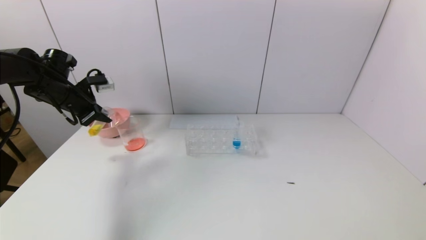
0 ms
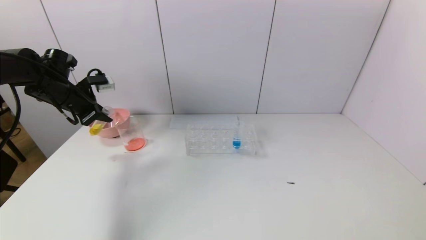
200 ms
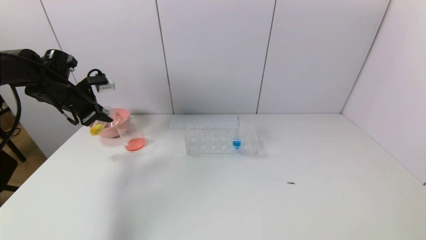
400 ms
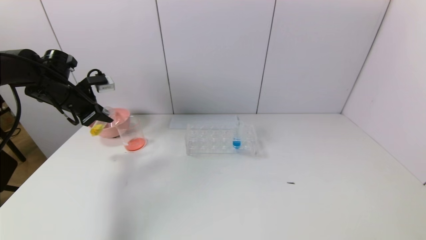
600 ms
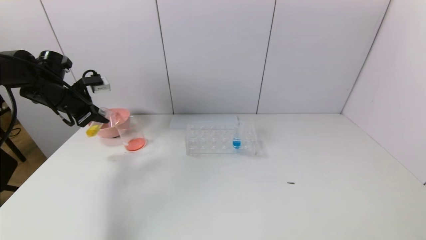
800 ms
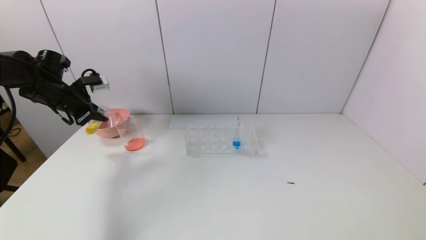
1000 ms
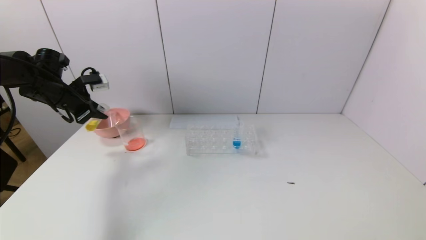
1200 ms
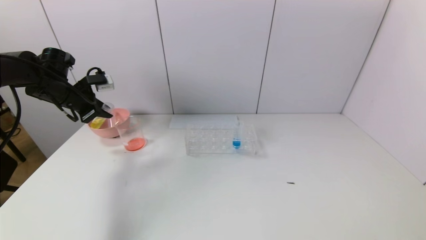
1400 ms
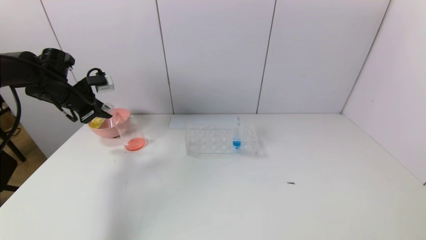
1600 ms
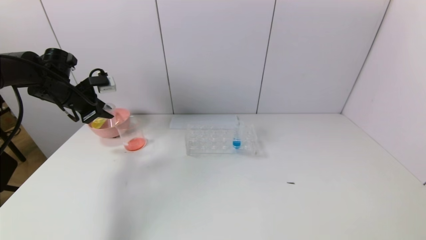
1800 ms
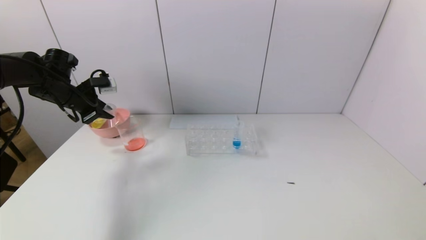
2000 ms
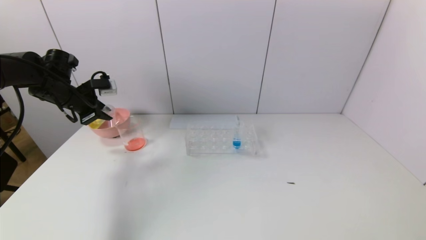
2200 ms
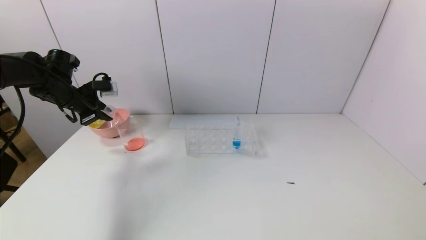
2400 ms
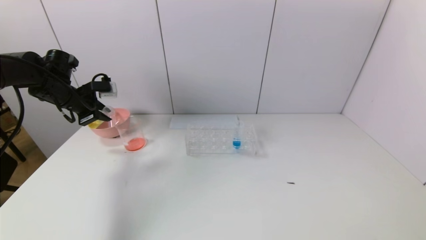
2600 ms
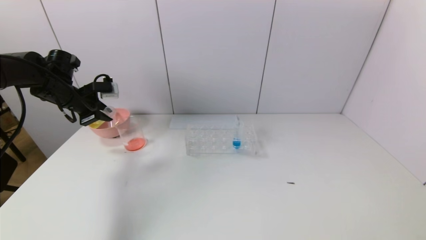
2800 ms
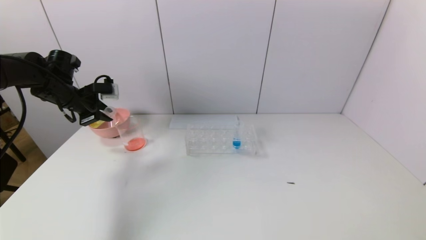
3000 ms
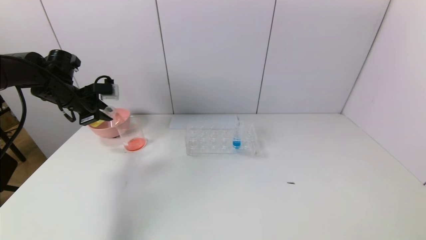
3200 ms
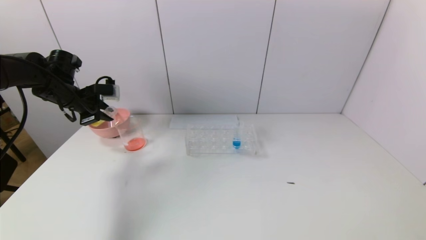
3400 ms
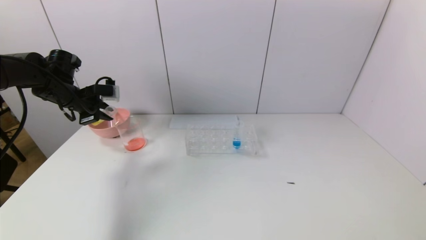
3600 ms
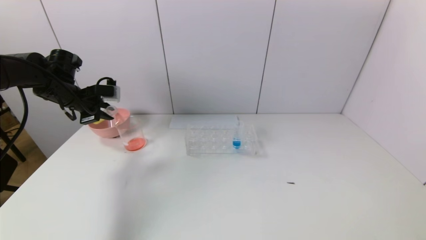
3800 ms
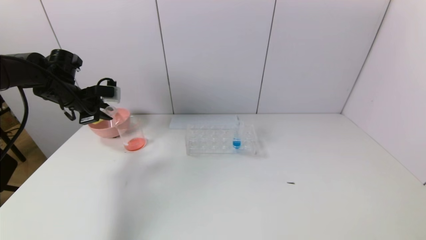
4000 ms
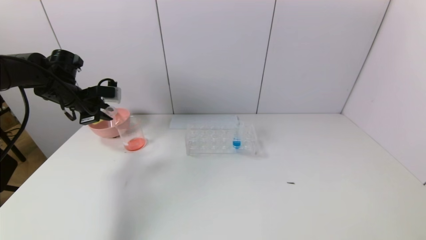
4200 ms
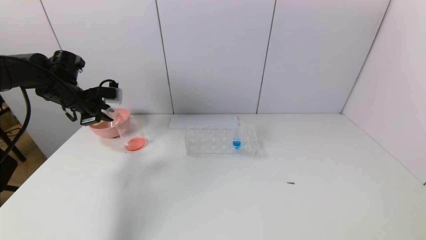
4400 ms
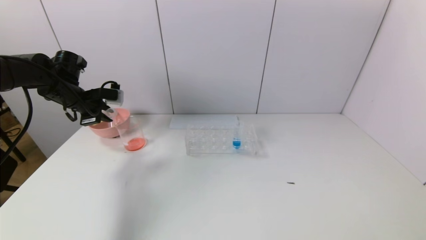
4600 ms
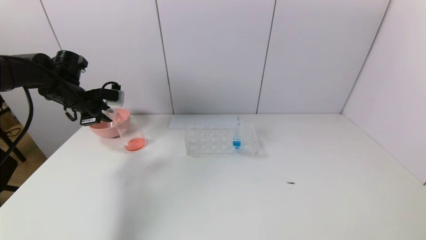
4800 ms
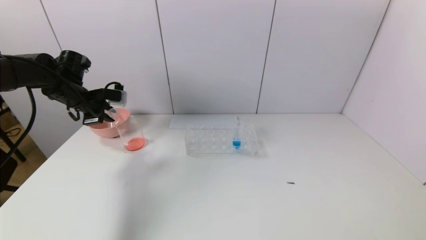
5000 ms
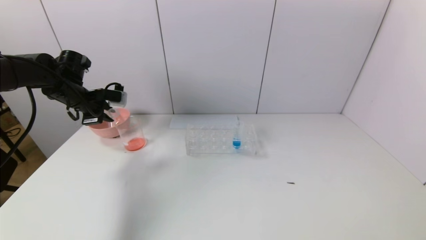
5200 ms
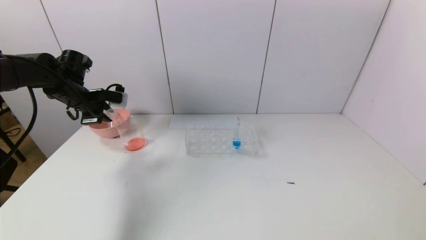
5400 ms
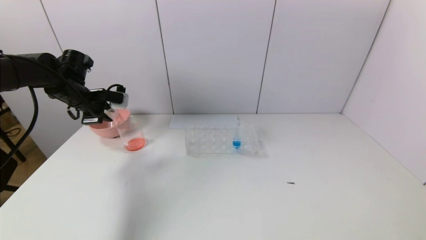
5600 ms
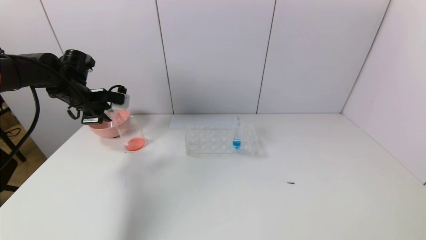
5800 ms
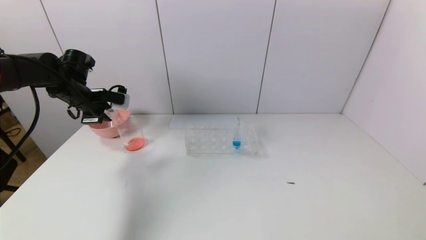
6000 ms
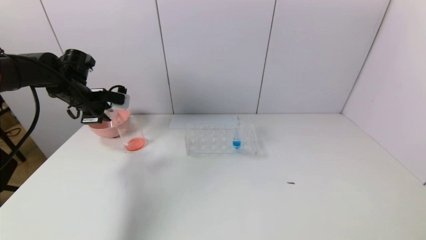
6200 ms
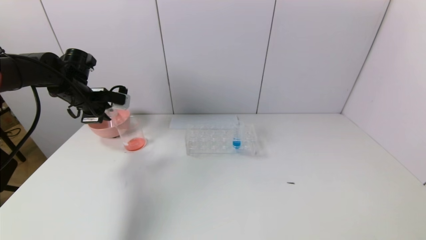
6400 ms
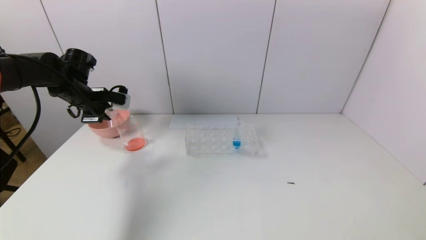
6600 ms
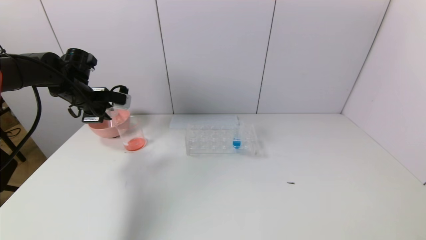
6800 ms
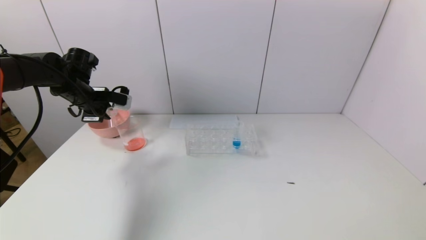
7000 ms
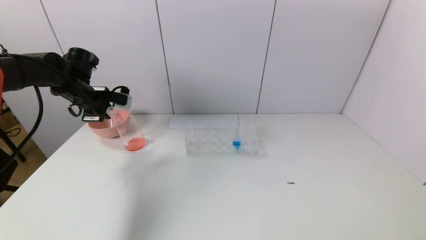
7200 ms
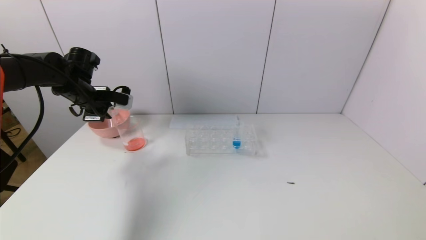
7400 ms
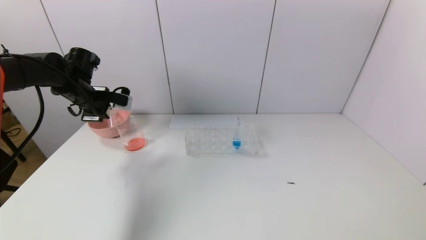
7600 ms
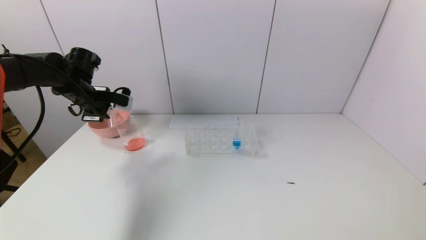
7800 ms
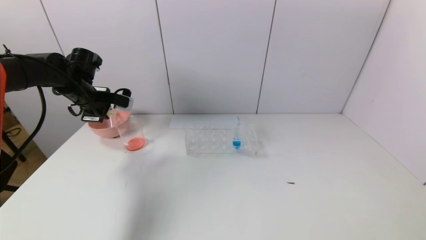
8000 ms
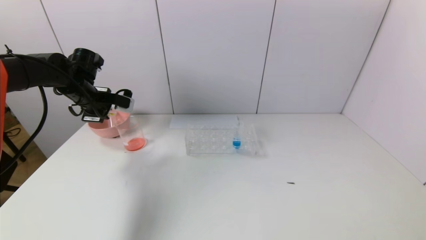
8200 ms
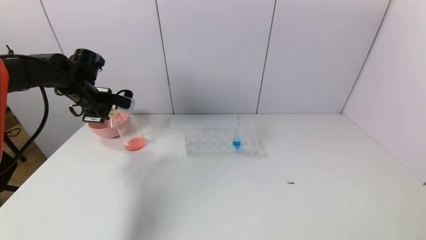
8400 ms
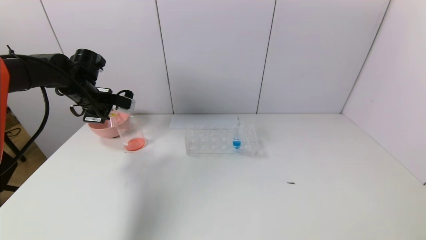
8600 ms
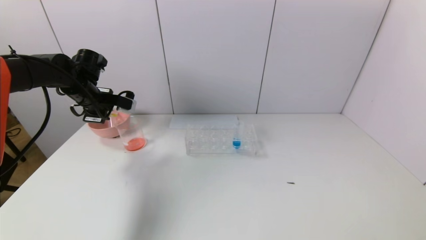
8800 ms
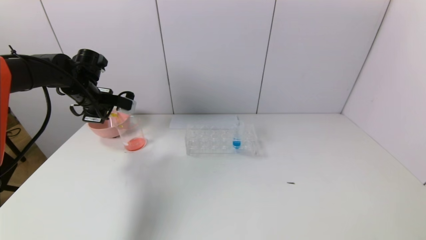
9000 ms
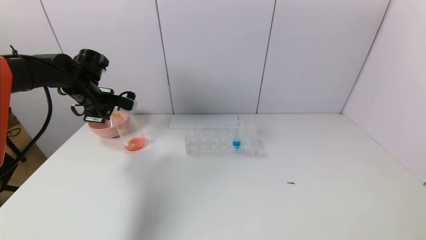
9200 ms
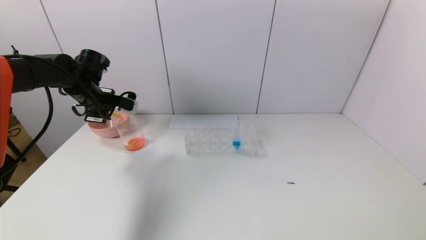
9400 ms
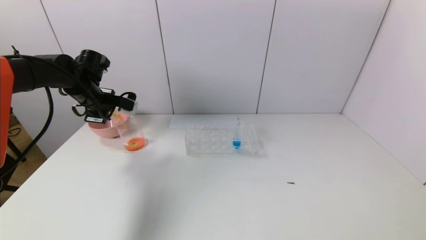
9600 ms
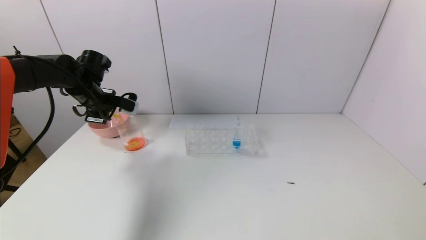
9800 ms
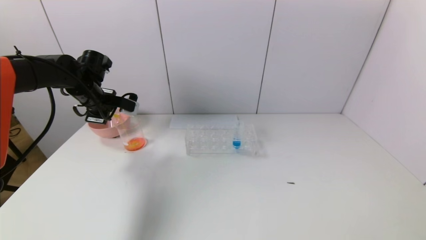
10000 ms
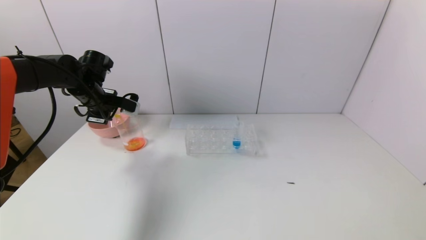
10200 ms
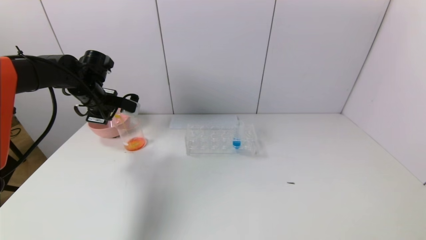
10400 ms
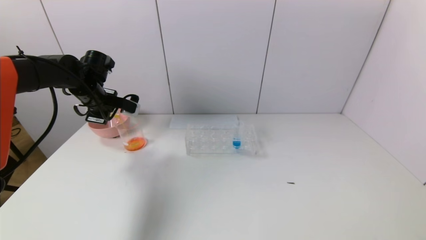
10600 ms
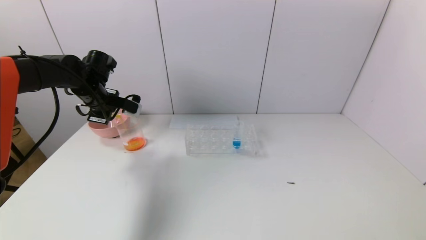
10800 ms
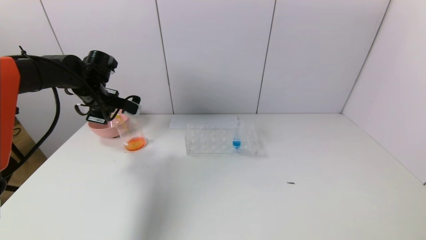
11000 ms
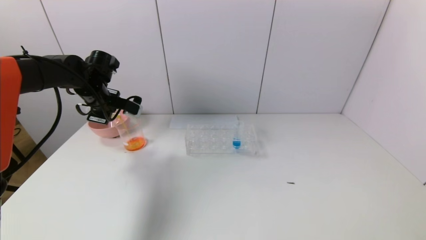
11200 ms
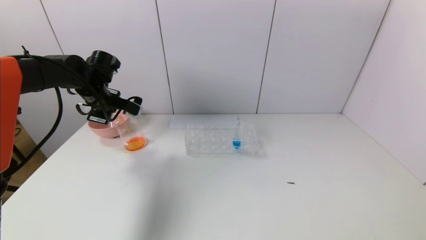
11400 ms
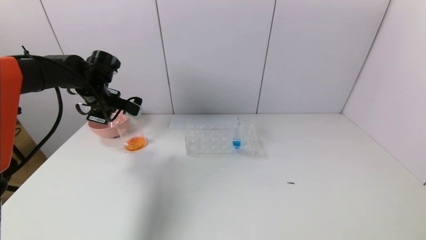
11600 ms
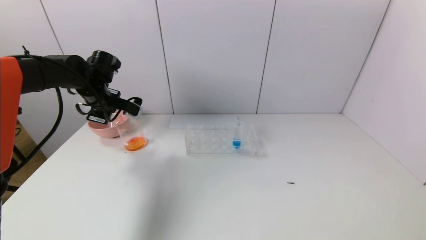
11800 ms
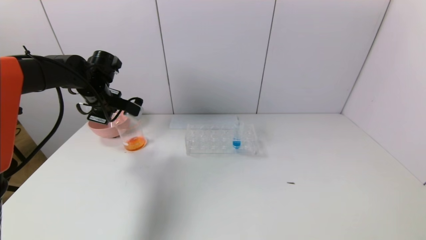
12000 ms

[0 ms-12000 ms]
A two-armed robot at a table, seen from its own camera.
Task of the whole recording: pick up the test tube with yellow pigment and the test tube with red pigment by grippers and pour them into the beaker.
0 ms to 1600 ms: There are only small adjustments of the grippers.
1600 ms to 3000 ms: The grippers move only a little.
3000 ms to 6000 ms: The grippers move only a little.
6000 ms to 9000 ms: The grippers move only a little.
9000 ms to 10400 ms: Both grippers stay put.
10400 ms to 12000 ms: The grippers make only small movements.

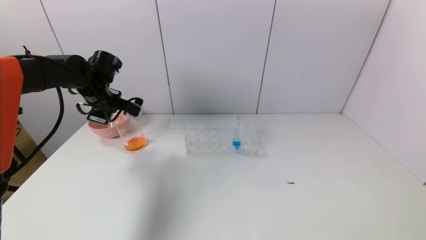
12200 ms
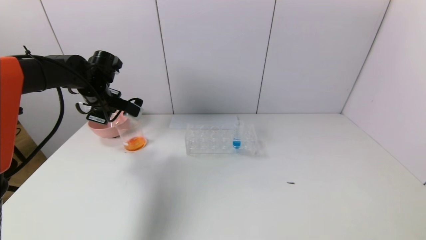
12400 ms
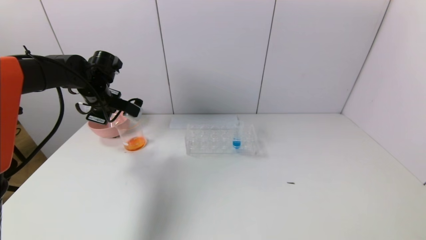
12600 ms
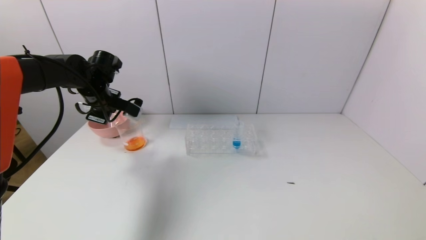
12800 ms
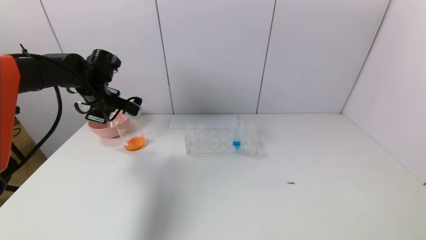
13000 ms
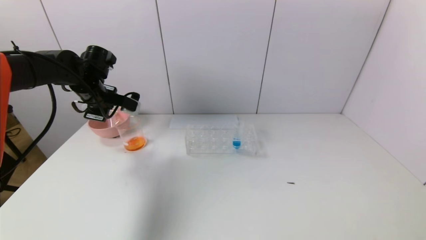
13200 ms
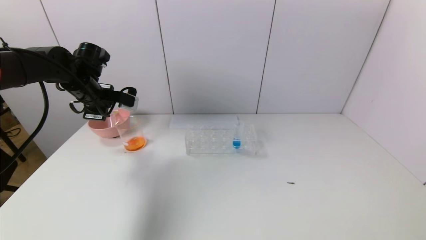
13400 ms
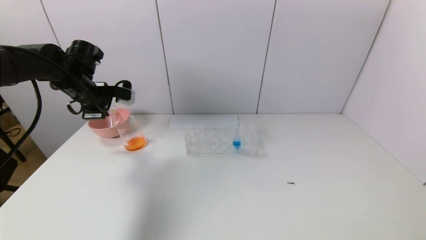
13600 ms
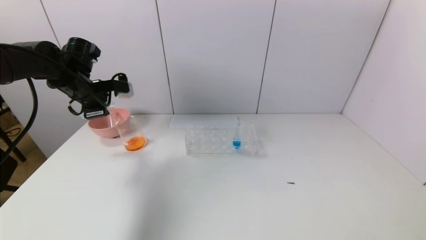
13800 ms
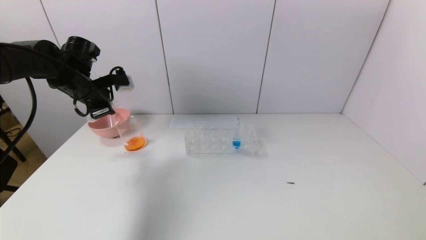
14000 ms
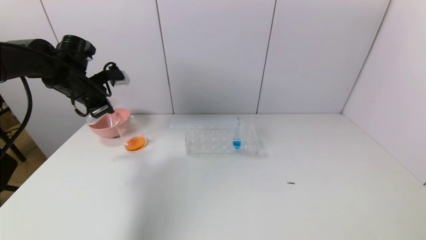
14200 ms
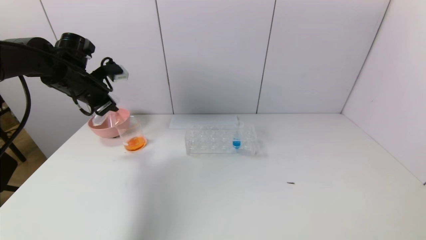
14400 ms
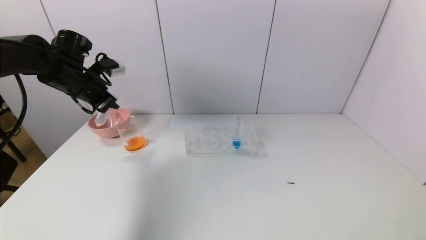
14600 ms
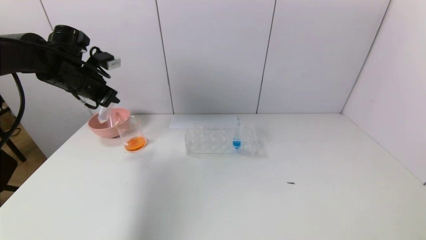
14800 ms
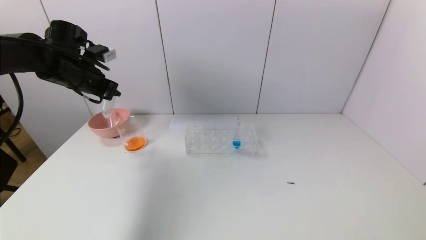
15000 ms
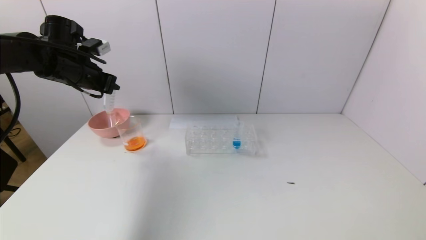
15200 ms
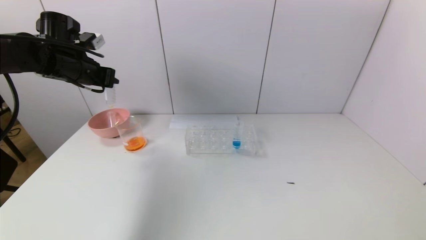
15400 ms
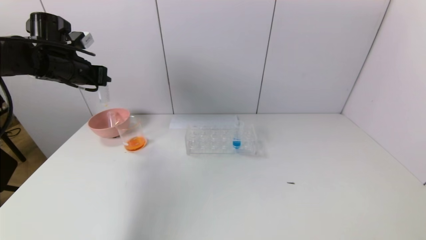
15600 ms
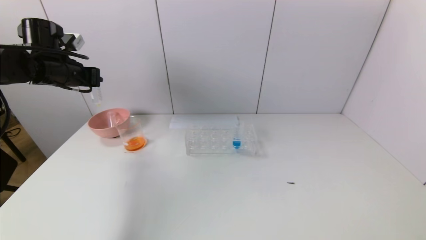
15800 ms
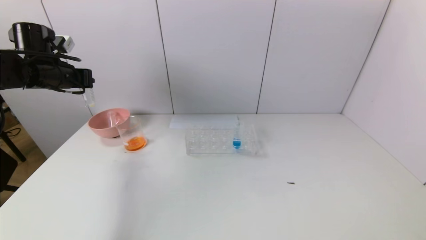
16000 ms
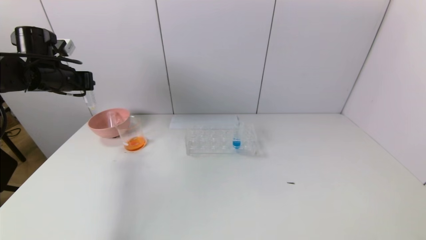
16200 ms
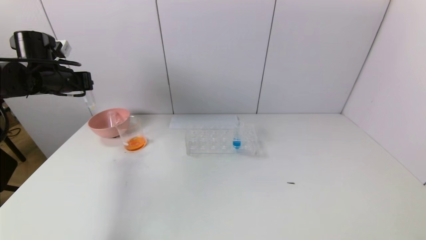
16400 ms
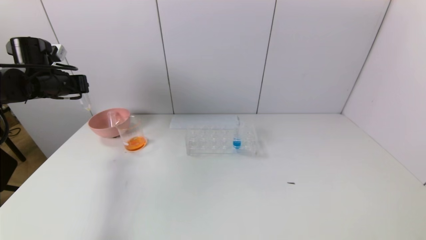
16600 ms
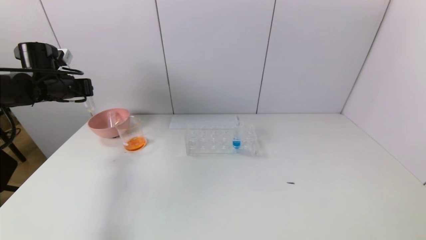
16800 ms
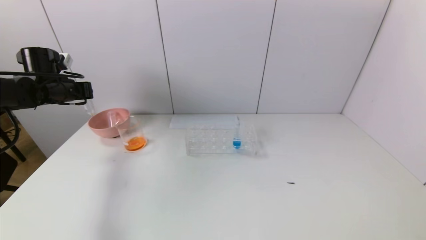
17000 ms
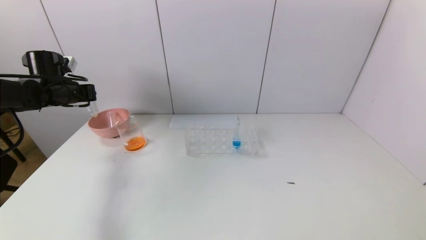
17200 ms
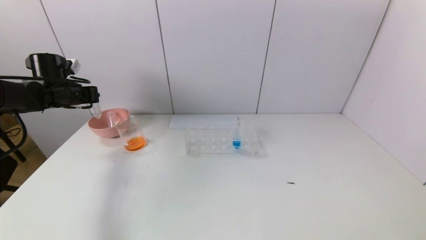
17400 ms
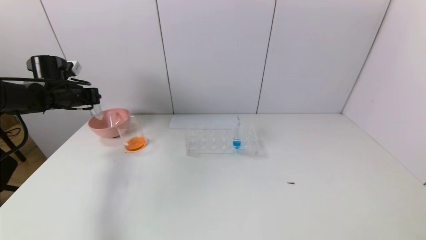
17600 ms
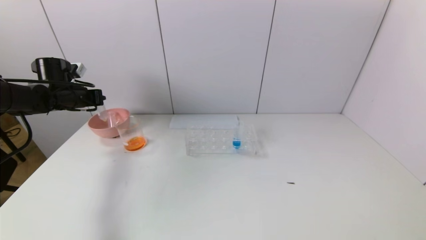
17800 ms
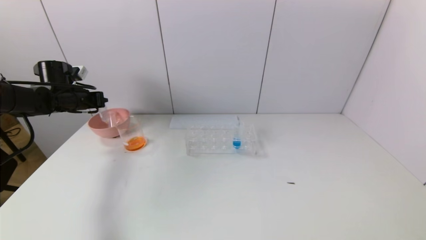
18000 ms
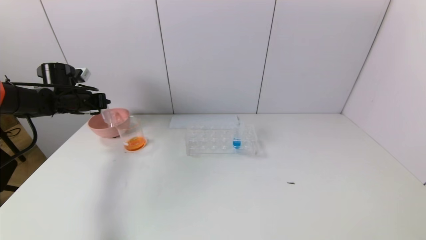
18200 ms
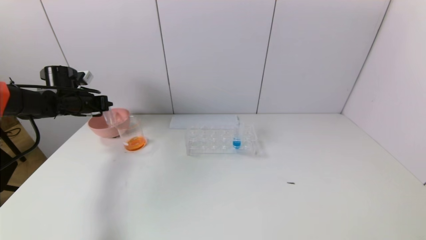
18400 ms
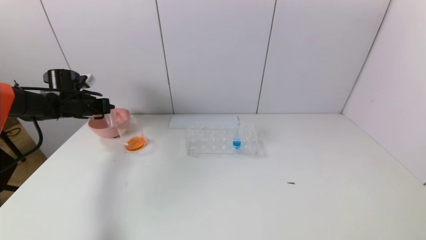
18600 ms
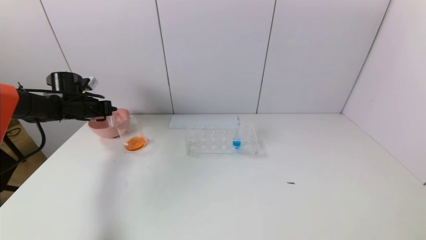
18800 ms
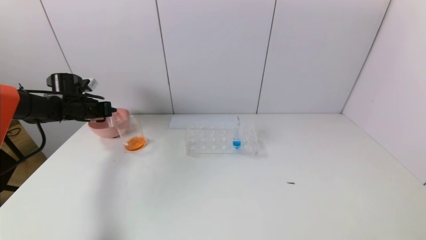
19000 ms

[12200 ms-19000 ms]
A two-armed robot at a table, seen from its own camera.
Task of the whole recording: pick up the test tube with yellow pigment and the test tube with red pigment by grippers and pour them into the beaker.
15000 ms to 16200 ms: The left gripper goes roughly 5 cm to the left.
16200 ms to 17600 ms: The left gripper shifts about 5 cm downward.
17600 ms to 19000 ms: The left gripper travels downward by some 5 cm.
